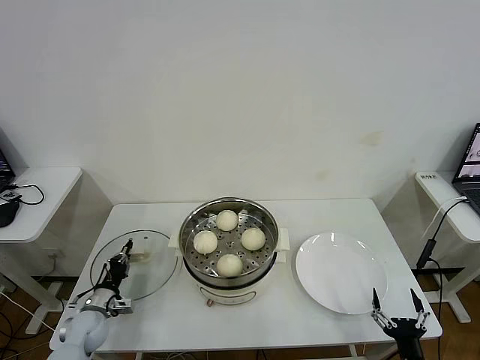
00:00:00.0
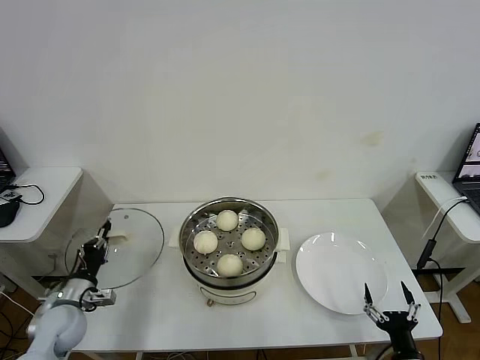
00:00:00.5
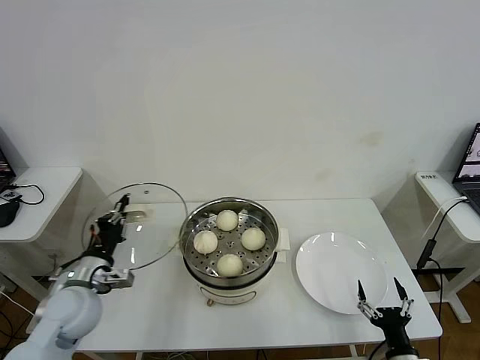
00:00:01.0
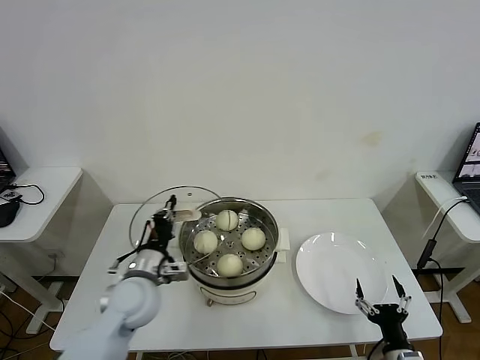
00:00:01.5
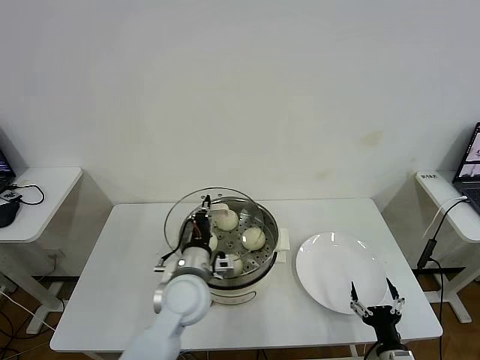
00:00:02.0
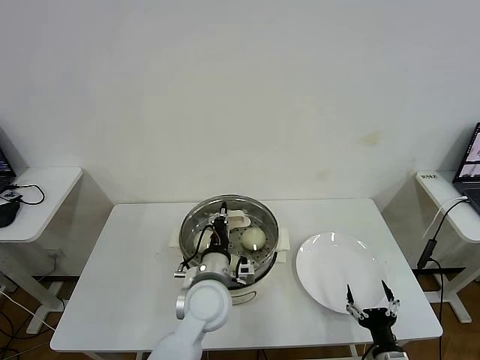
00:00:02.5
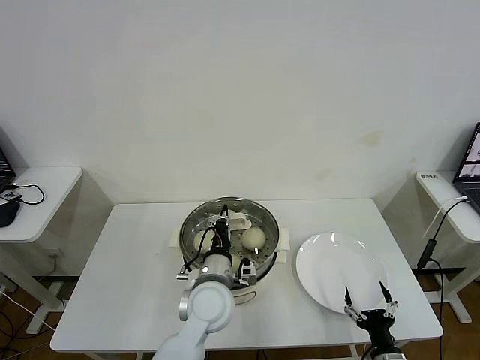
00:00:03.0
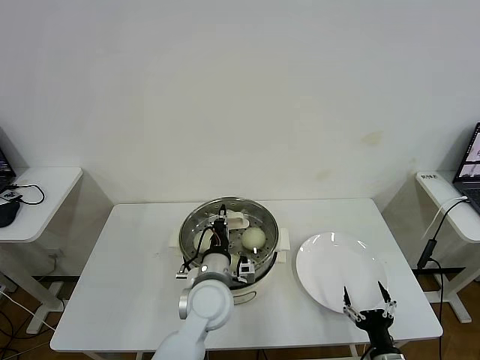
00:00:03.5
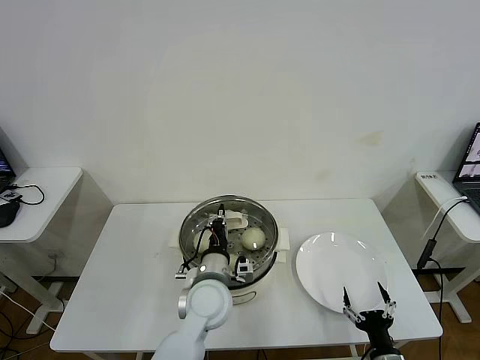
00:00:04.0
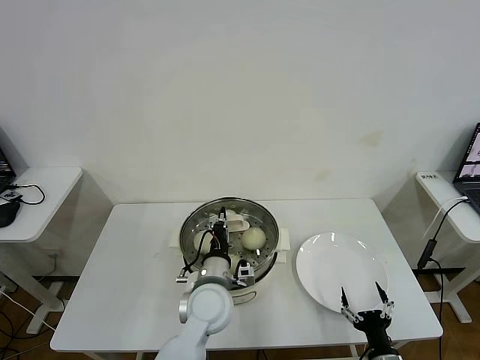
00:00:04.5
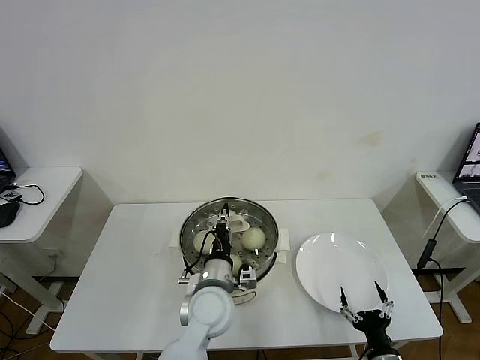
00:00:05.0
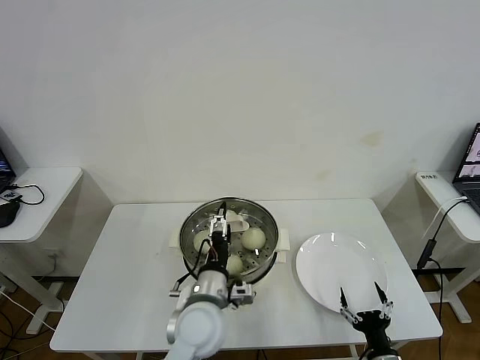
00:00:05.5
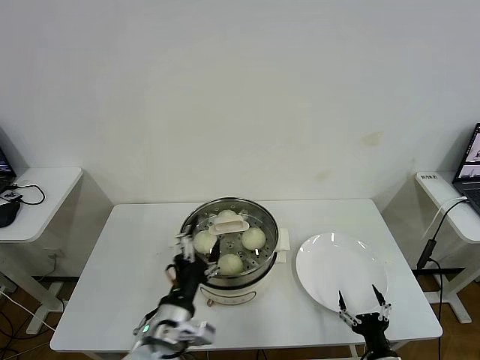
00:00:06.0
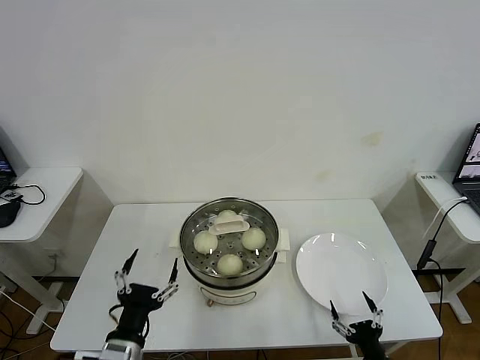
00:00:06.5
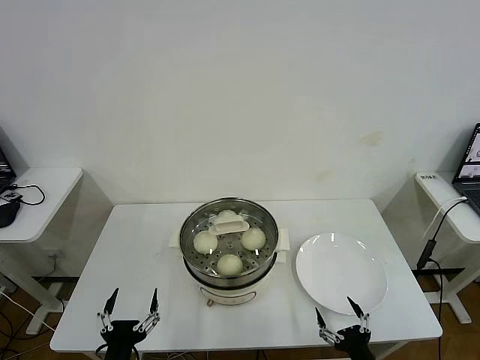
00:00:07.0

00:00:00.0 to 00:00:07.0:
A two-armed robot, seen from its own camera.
Task of the whole recording: take steamed baozi put them in steamer then cover it.
Step, 00:00:00.5 to 00:00:05.0: Place the pot lid on the steamer with left gripper.
00:00:00.0 to 00:00:02.0: The left gripper travels to the right and upward by about 35 cm.
00:00:02.0 to 00:00:03.5: The left gripper heads to the right, covering roughly 5 cm.
00:00:03.5 to 00:00:05.0: The two grippers keep their place.
00:00:05.0 to 00:00:07.0: The left gripper moves backward and to the left, some 25 cm, and opens; the right gripper shifts by approximately 5 cm.
